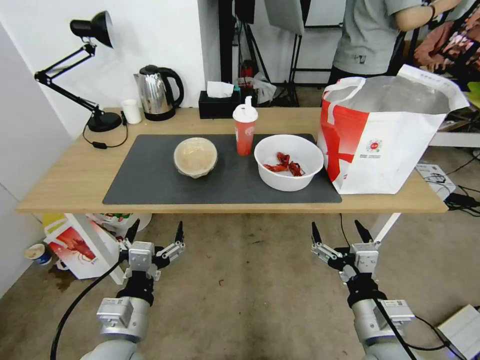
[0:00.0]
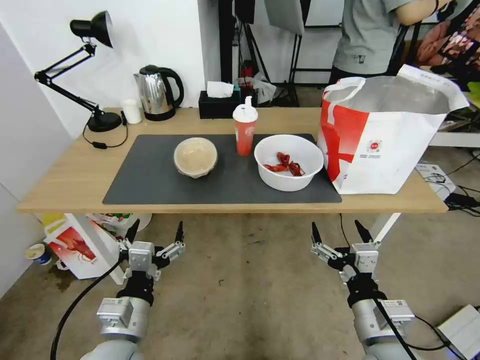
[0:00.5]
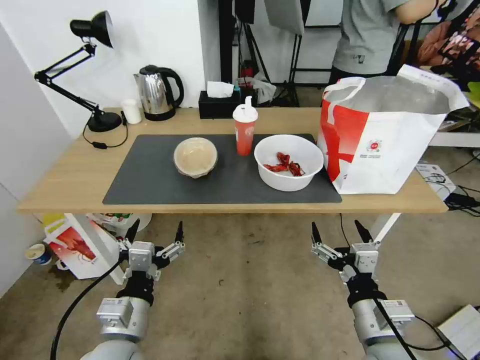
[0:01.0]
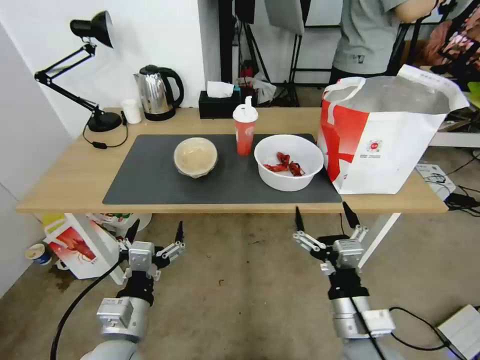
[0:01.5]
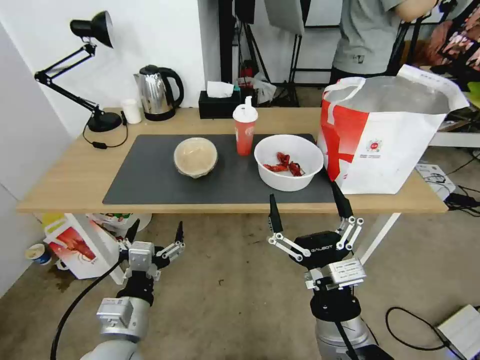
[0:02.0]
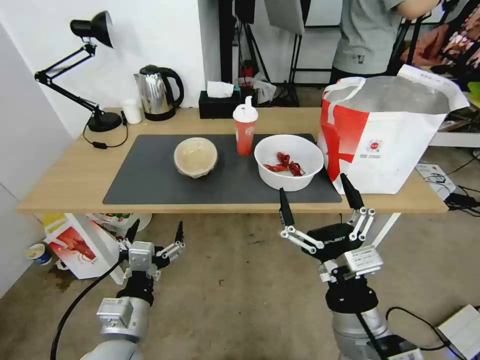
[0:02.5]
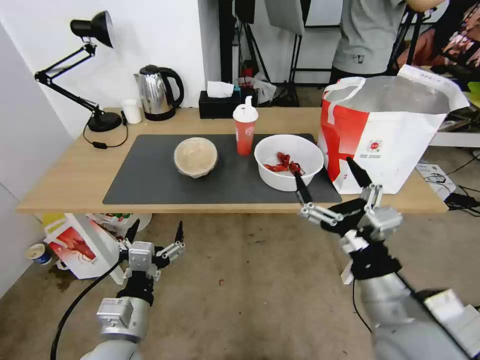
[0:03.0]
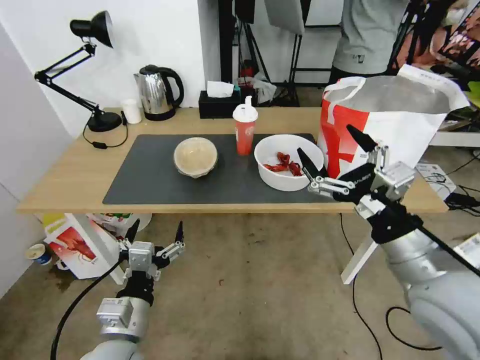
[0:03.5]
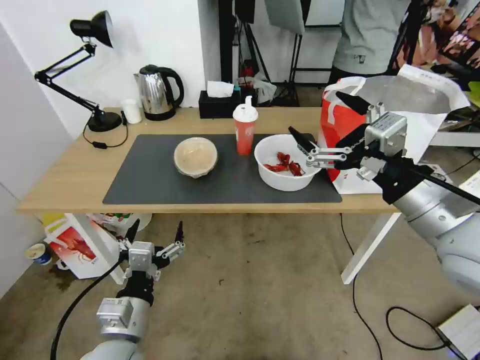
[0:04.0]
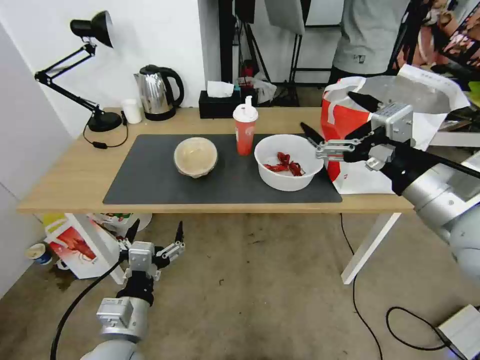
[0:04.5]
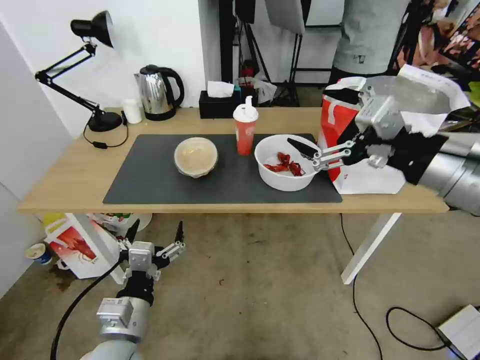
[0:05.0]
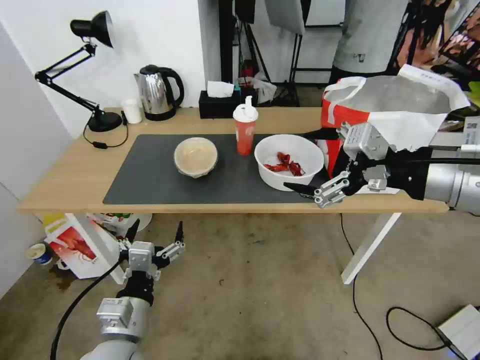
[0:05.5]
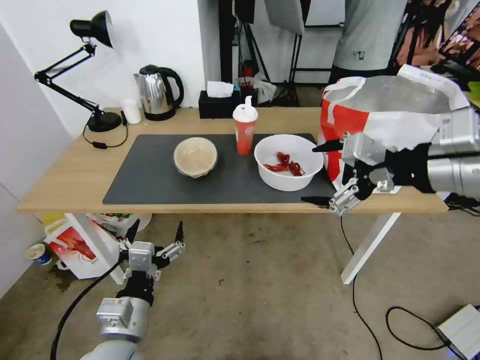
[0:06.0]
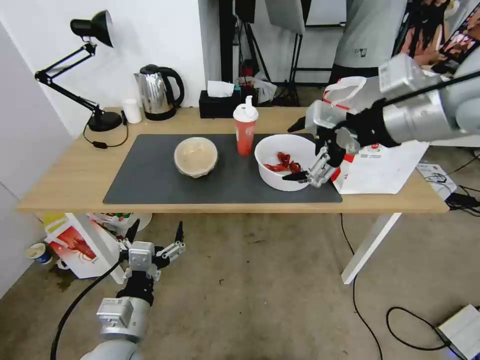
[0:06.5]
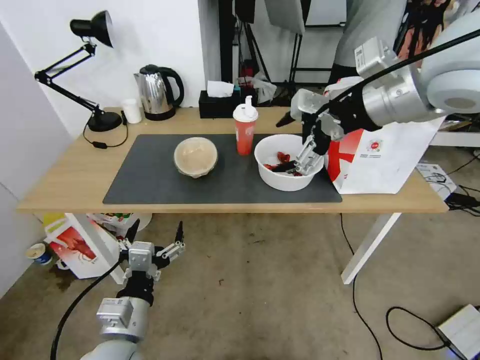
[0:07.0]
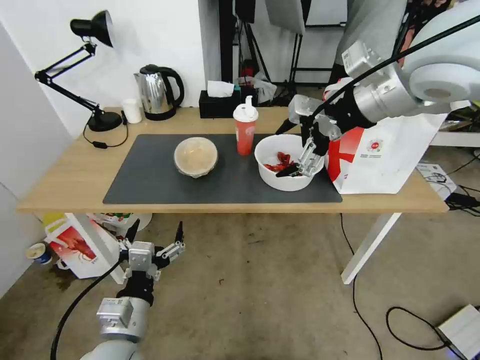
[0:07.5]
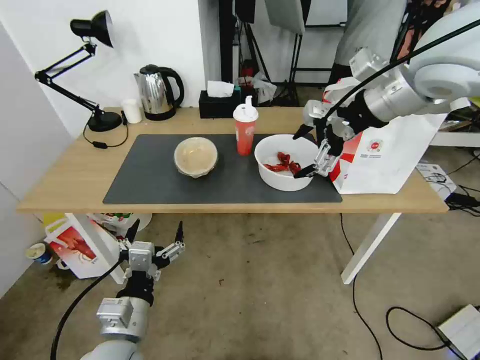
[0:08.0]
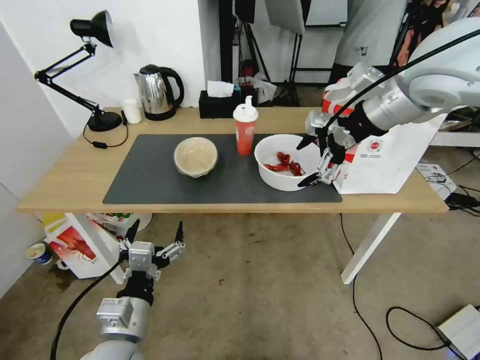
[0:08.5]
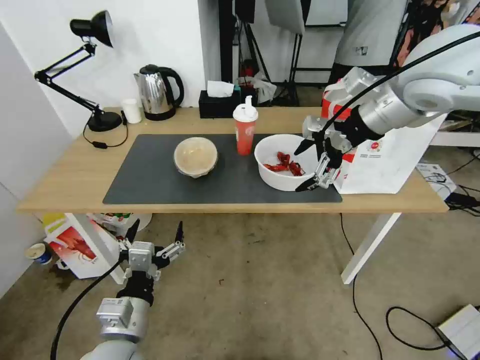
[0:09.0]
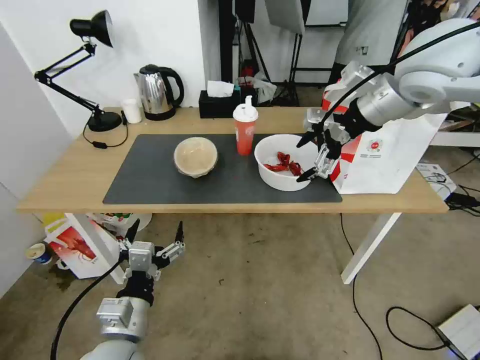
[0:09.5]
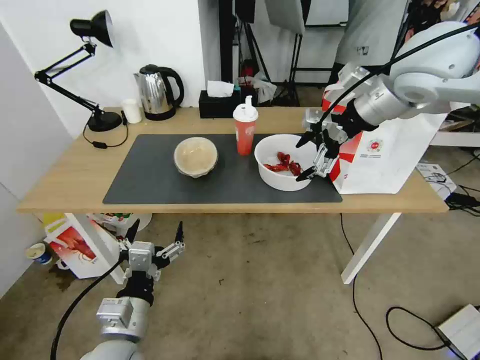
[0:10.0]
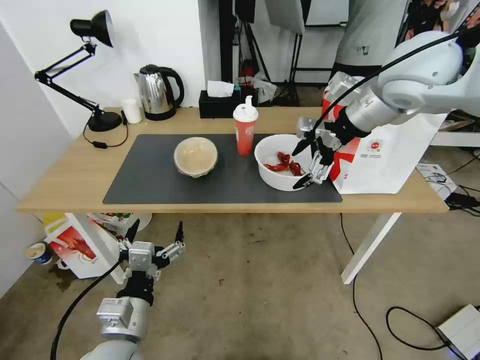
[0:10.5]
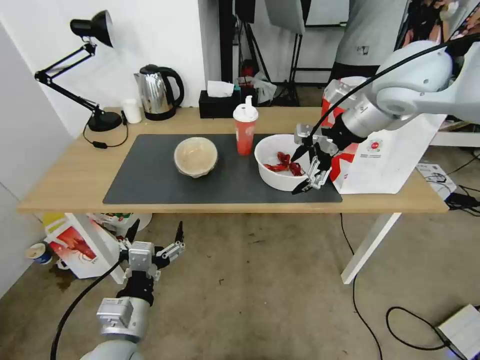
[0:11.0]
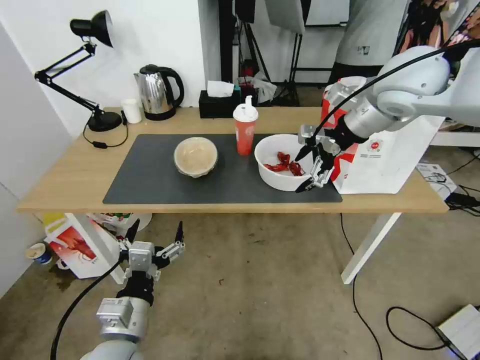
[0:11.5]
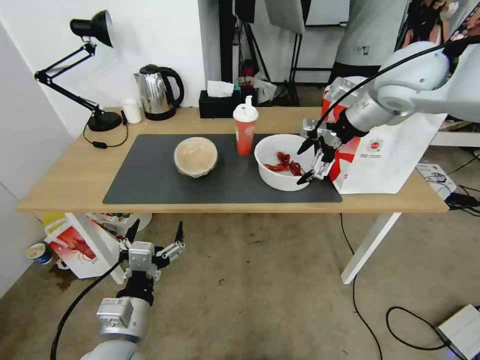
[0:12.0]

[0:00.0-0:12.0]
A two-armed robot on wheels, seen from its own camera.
Task of the whole recording: Pick up the trash from the table and place it into the takeout bag.
0:02.0 to 0:04.0: The right gripper goes about 25 cm upward, to the right and forward.
0:04.0 to 0:06.0: The right gripper is displaced upward by about 10 cm.
0:06.0 to 0:08.0: The right gripper heads forward, covering about 15 cm.
0:08.0 to 0:10.0: The right gripper shifts by some 5 cm.
0:10.0 to 0:12.0: The grippers make only small movements.

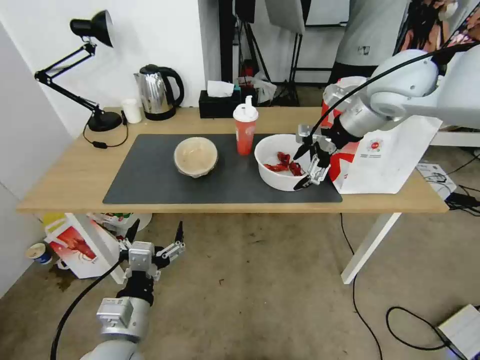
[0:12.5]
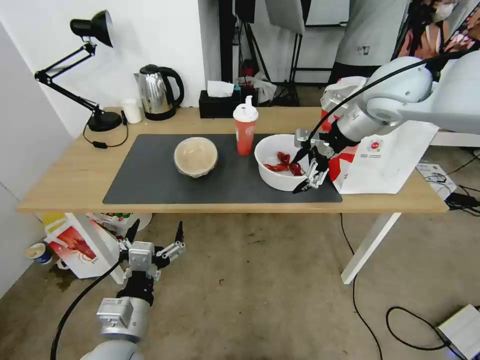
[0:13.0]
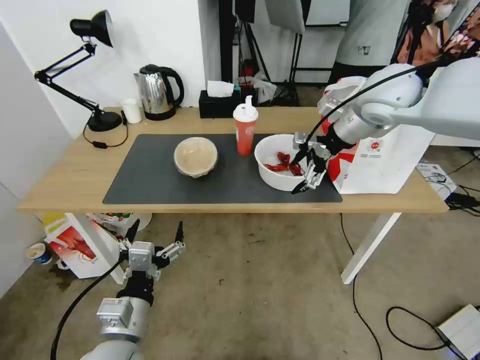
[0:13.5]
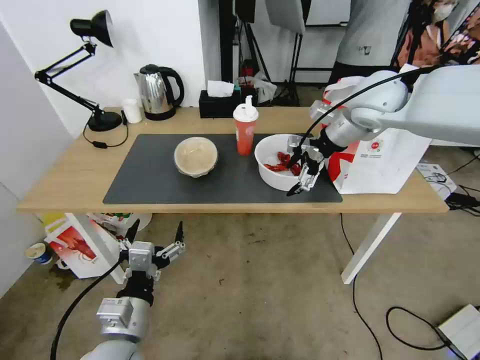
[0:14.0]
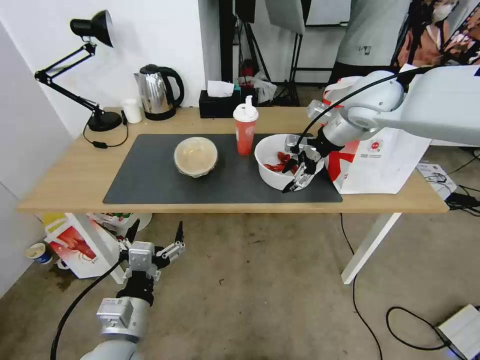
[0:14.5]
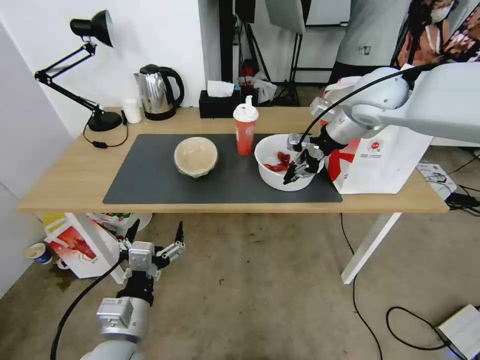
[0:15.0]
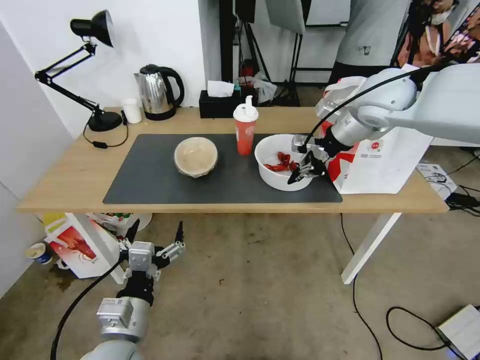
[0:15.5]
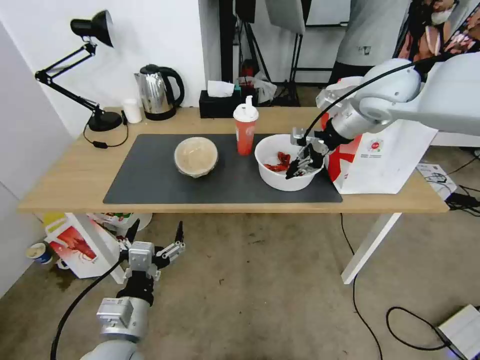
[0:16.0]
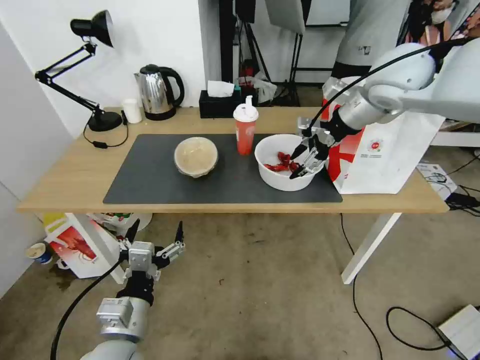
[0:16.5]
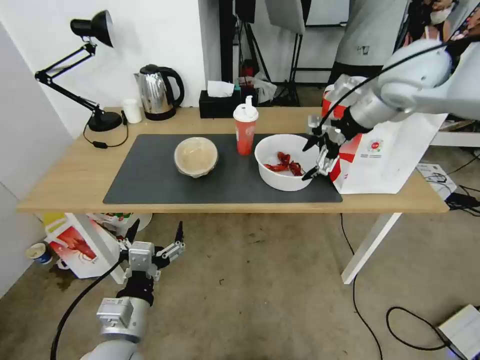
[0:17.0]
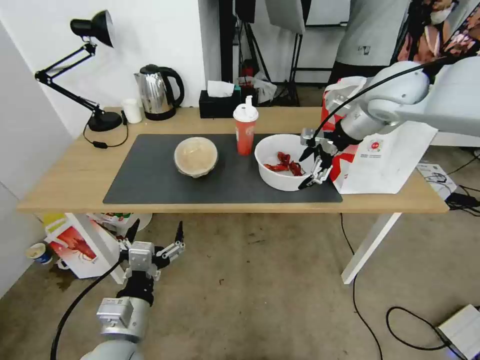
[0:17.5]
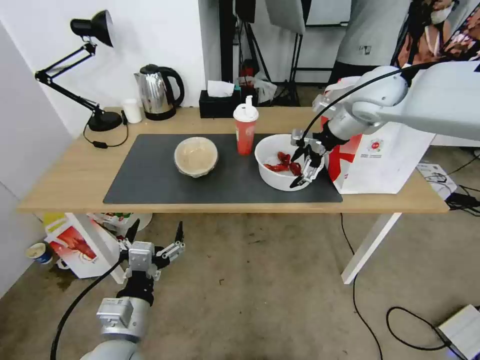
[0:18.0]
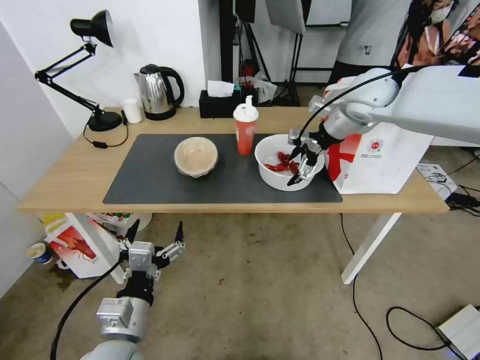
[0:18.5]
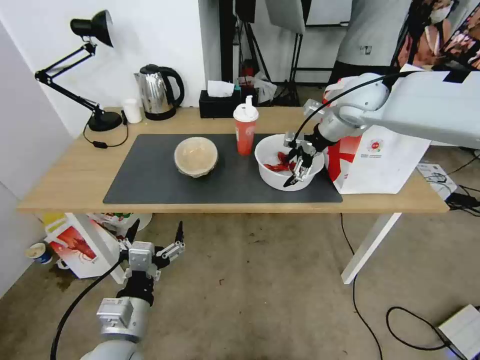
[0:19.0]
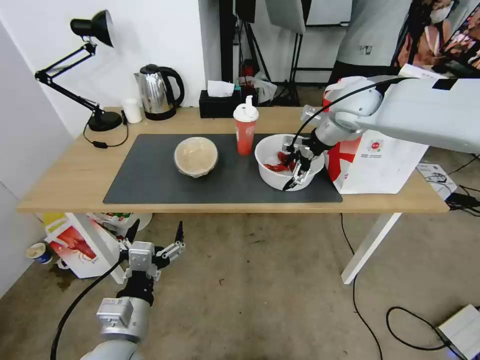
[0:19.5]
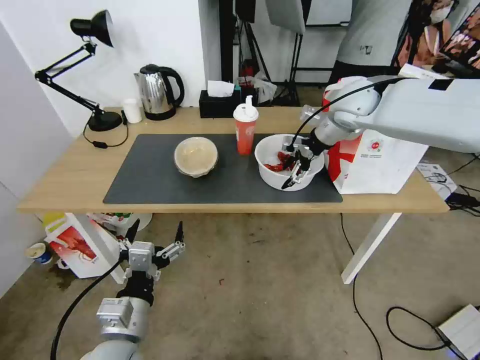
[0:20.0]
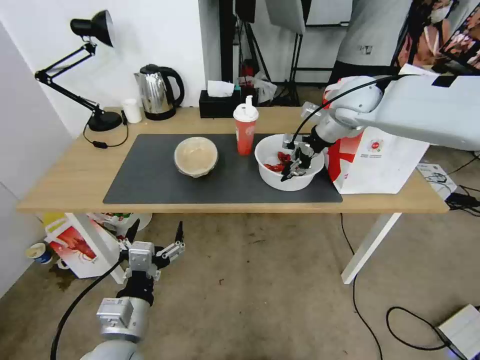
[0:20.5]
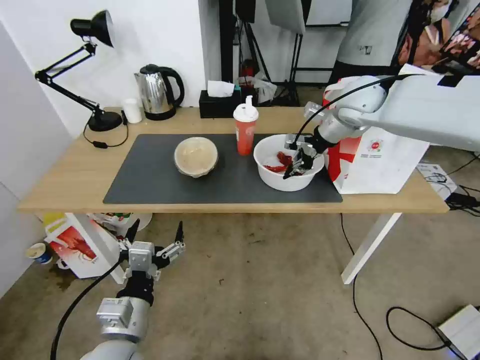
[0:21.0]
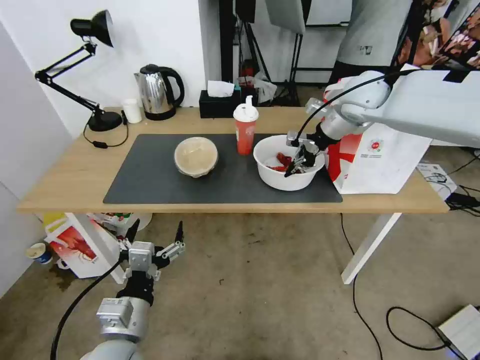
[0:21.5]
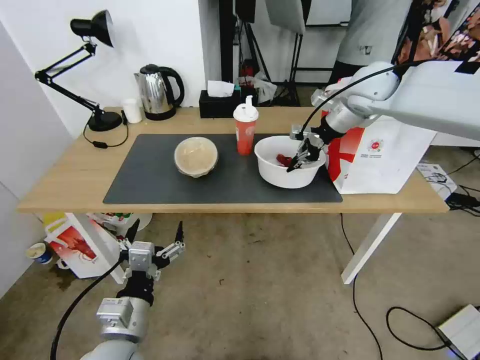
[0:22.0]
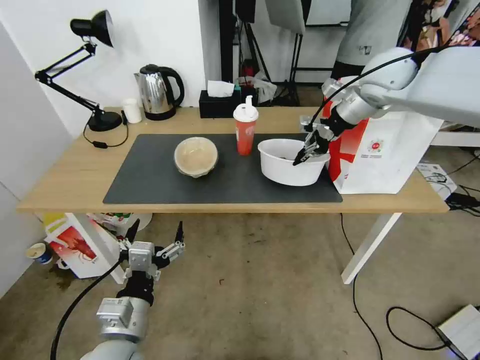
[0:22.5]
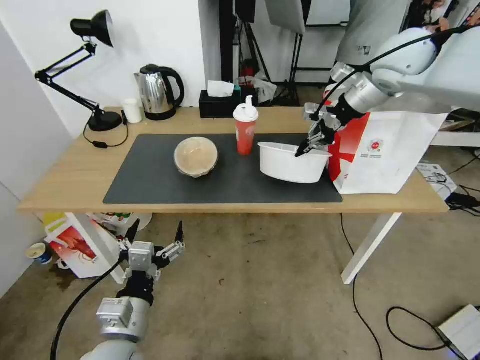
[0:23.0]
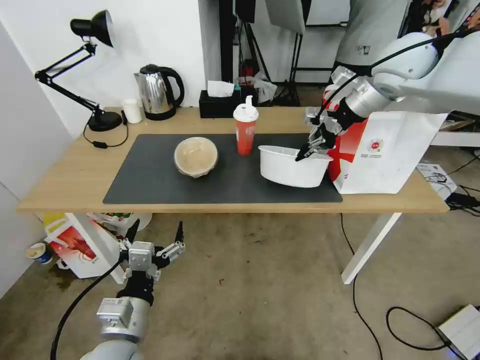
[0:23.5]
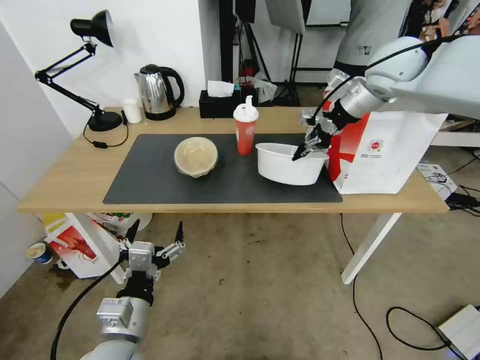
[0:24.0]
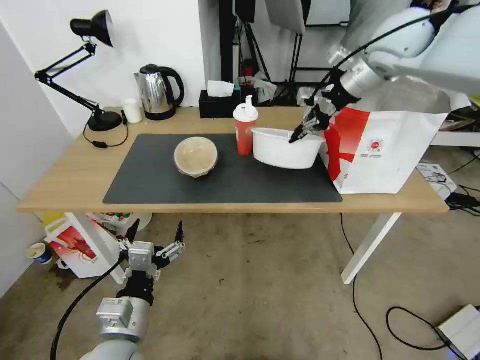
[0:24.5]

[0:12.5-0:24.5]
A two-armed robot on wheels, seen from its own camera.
Task of the whole recording: Pick up the trash from the table and place it into the takeout bag.
0:12.5 to 0:14.5: The right gripper changes place by approximately 5 cm.
0:14.5 to 0:16.5: The right gripper moves upward, some 5 cm, and closes and opens again.
0:16.5 to 0:18.5: The right gripper moves downward and forward, approximately 10 cm, and opens its fingers.
0:18.5 to 0:20.5: The right gripper closes.
0:20.5 to 0:22.5: The right gripper shifts some 5 cm upward.
0:22.5 to 0:24.5: The right gripper shifts approximately 5 cm upward.

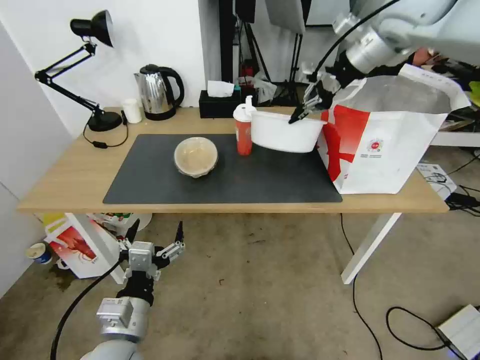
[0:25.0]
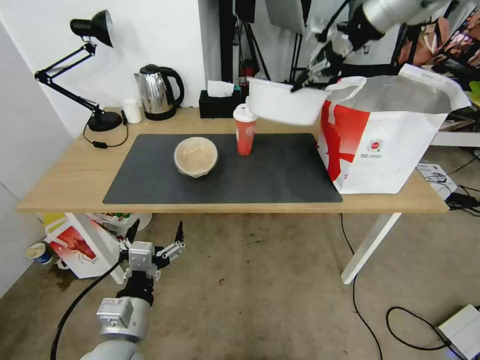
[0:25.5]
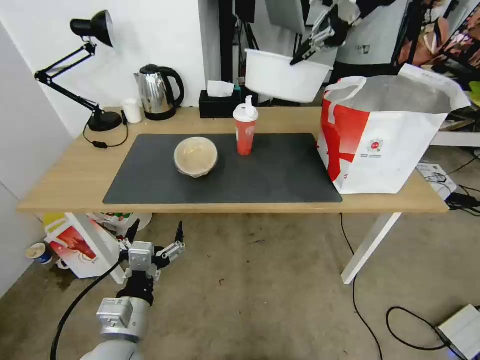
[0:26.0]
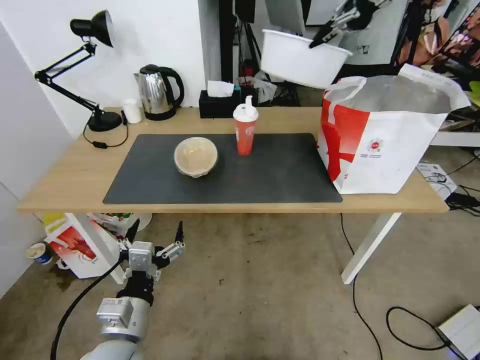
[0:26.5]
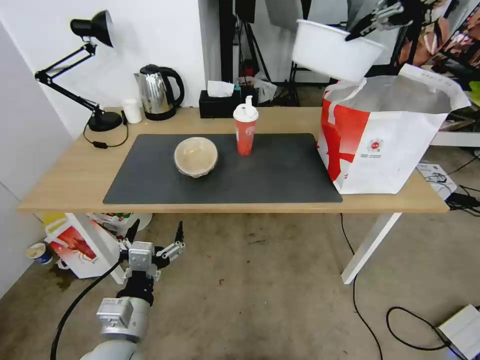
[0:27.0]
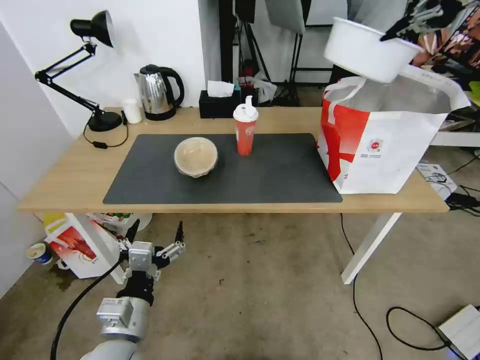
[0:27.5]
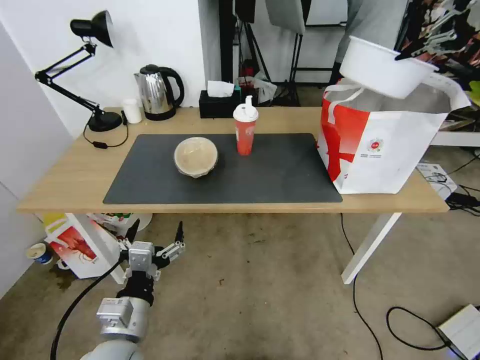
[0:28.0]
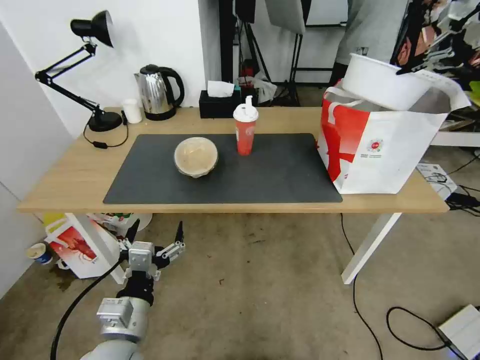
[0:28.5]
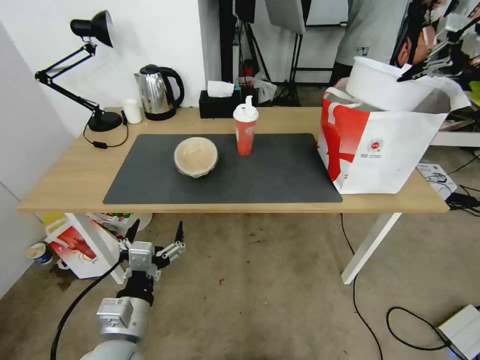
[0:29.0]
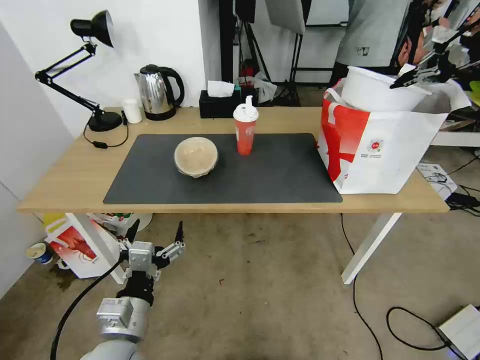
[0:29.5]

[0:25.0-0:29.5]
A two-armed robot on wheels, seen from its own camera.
Task of the whole recording: Pick up the trash from the table and place it into the takeout bag.
0:25.0 to 0:27.0: The right gripper heads upward and to the right, covering roughly 15 cm.
0:27.0 to 0:29.5: The right gripper goes roughly 15 cm to the right and downward.
